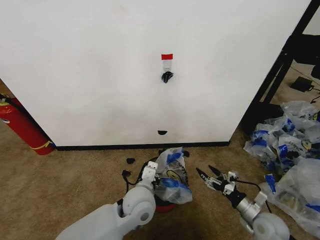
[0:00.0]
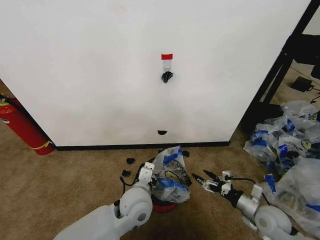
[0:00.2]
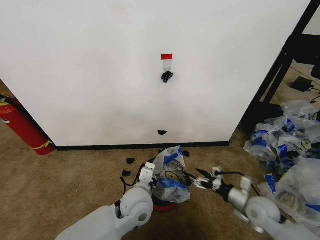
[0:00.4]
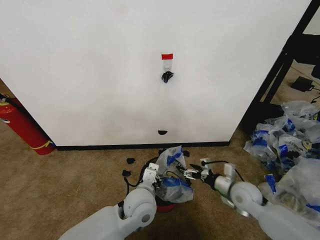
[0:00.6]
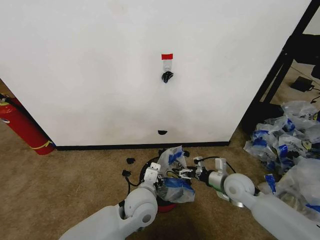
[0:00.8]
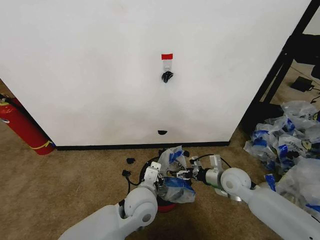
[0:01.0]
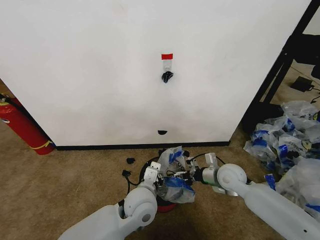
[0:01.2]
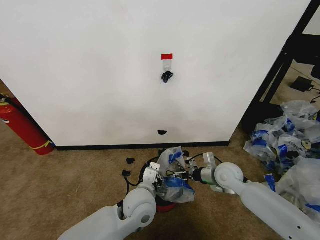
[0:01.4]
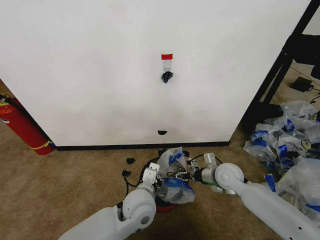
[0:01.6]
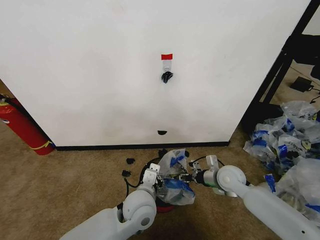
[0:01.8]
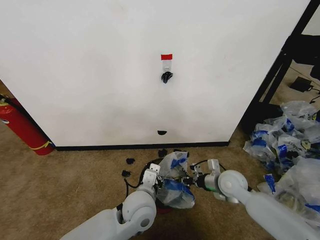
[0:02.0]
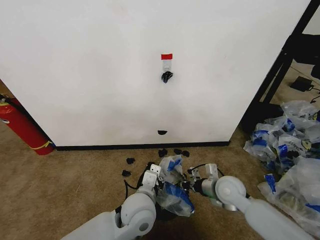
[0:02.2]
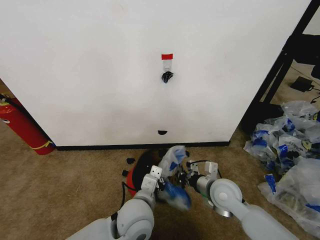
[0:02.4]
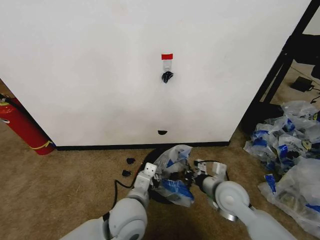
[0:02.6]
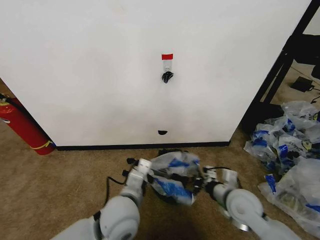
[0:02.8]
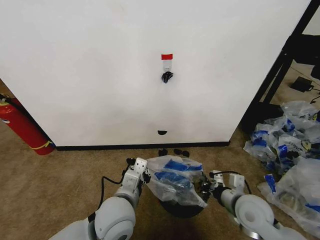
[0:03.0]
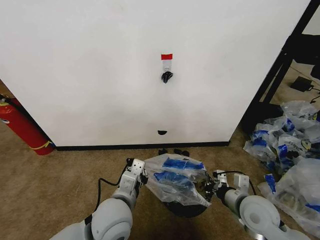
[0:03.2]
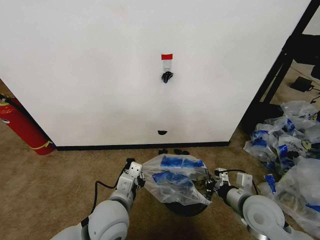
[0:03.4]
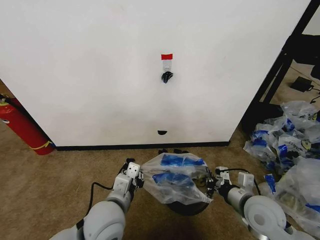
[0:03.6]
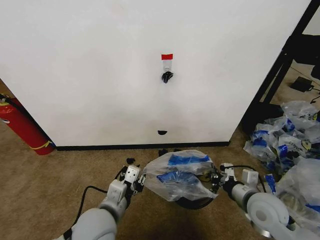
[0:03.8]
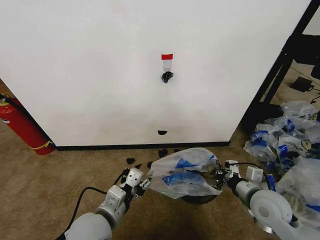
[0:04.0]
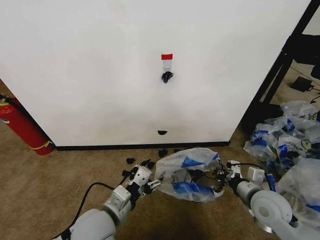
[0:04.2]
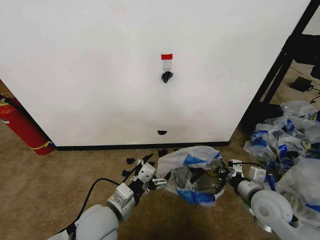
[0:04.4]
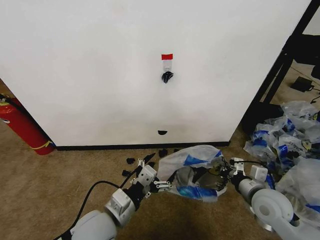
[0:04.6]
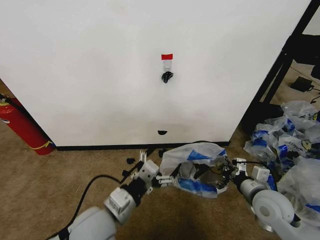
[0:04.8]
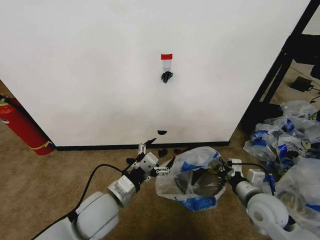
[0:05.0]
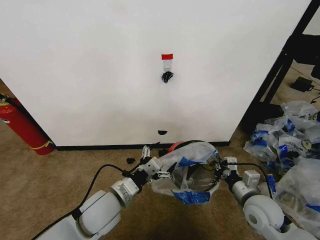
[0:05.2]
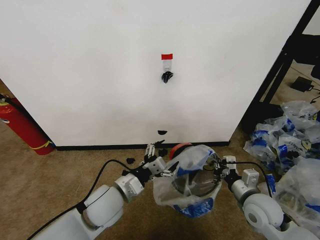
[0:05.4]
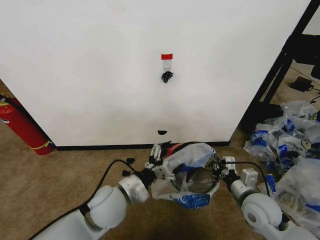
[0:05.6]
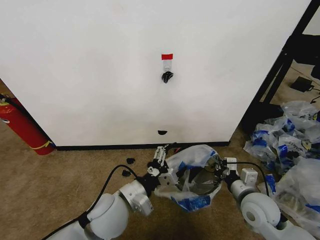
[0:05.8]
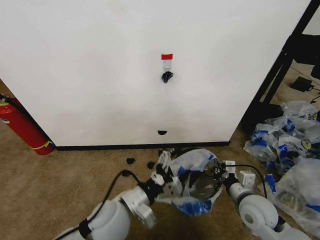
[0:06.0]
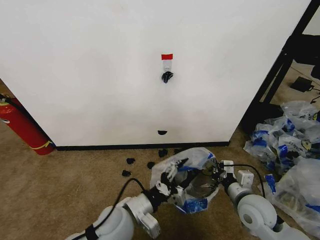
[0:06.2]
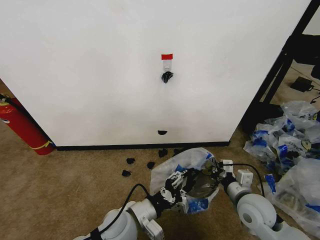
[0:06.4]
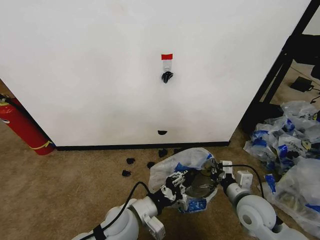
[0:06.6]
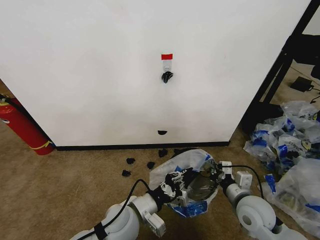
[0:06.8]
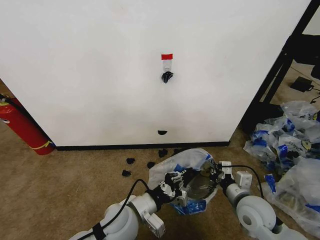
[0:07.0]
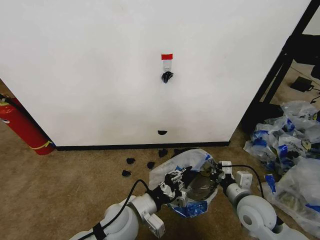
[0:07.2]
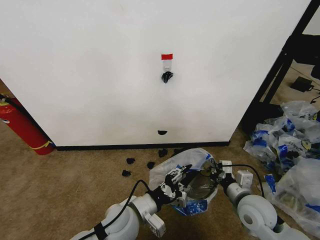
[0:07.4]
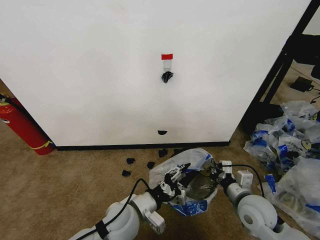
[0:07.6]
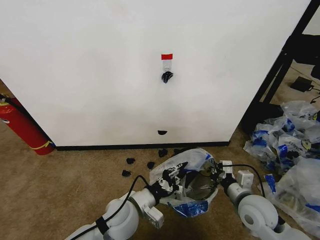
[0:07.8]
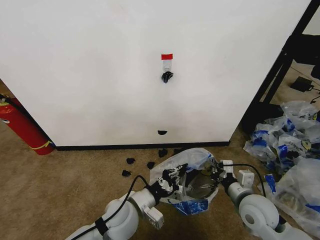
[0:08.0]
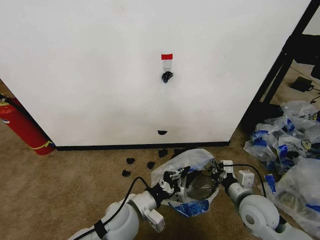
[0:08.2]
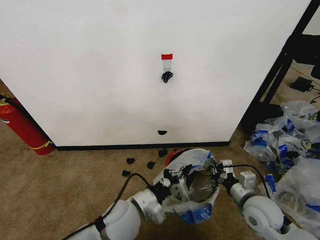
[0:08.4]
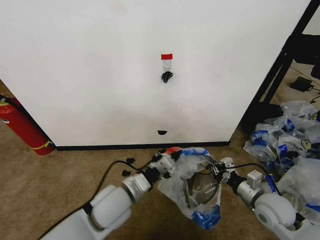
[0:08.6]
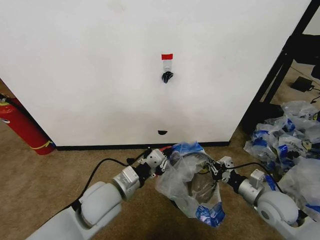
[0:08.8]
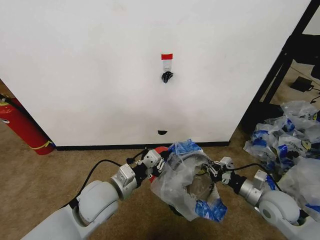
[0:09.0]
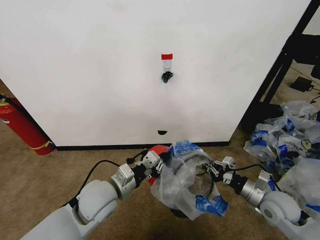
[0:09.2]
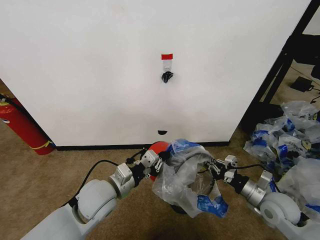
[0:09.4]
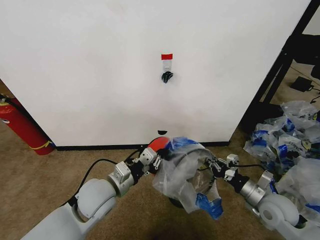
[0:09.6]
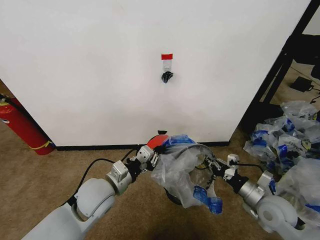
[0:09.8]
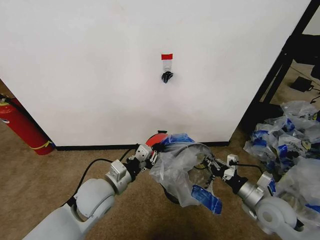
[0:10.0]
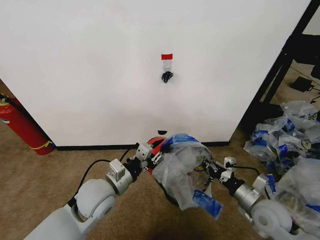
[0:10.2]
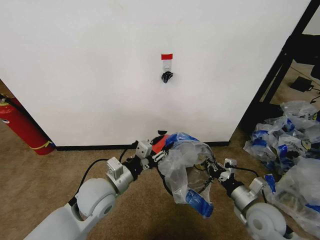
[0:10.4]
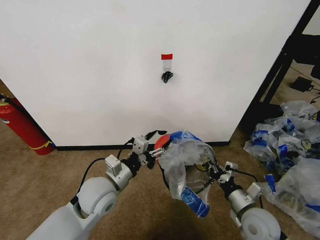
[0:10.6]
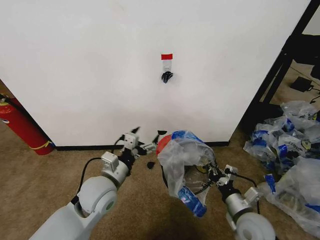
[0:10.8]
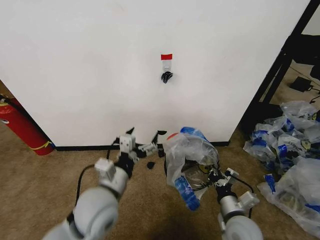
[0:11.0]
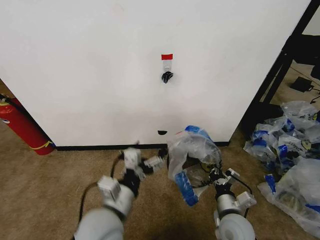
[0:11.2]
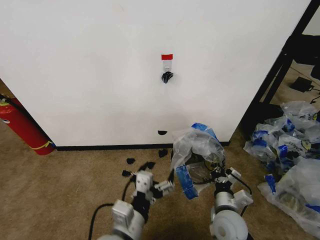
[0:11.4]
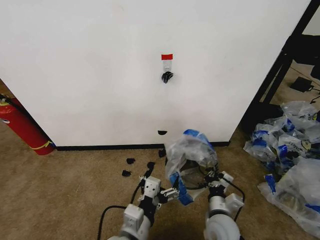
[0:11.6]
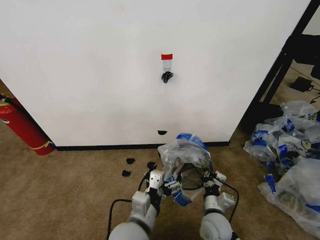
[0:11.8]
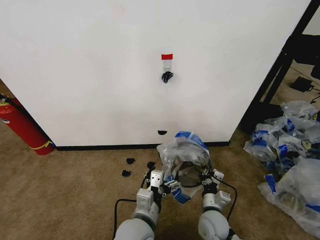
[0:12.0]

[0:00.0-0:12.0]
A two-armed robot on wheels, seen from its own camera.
Task of the whole recording: Pick up the garbage bag from the wall and place it over the trash bin.
0:00.0 to 0:01.6: The right gripper is displaced forward, to the left and upward by about 20 cm.
0:01.6 to 0:03.0: The left gripper goes roughly 5 cm to the left. The right gripper goes approximately 15 cm backward, and closes its fingers.
0:03.0 to 0:04.4: The left gripper opens. The right gripper changes place by some 5 cm.
0:06.0 to 0:07.6: The left gripper goes approximately 5 cm downward, and closes up.
0:07.6 to 0:09.0: The right gripper goes about 10 cm to the right. Meanwhile the left gripper goes some 10 cm upward and to the left, and closes up.
0:09.0 to 0:10.4: The right gripper moves approximately 5 cm. The left gripper opens up.
0:10.4 to 0:12.0: The left gripper heads to the right, backward and downward, covering about 15 cm, and opens its fingers. Meanwhile the right gripper shifts some 15 cm to the left and downward.

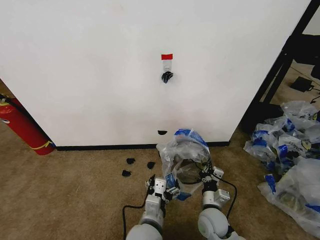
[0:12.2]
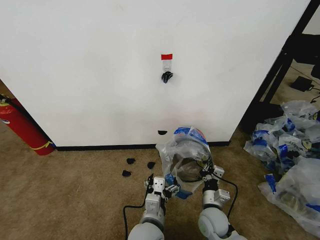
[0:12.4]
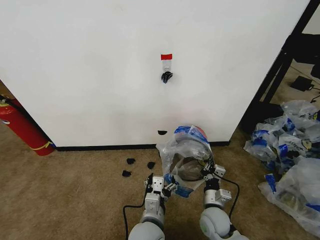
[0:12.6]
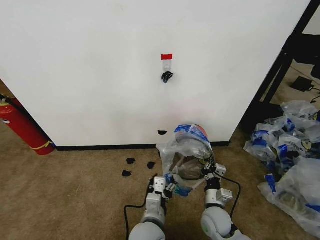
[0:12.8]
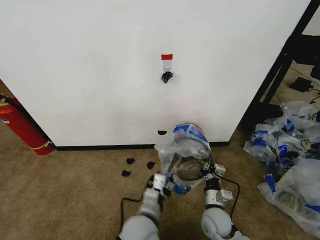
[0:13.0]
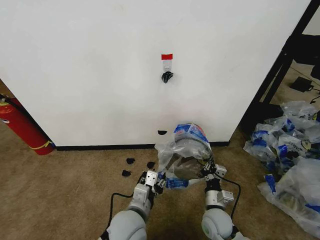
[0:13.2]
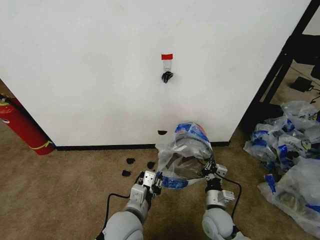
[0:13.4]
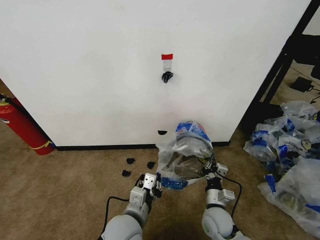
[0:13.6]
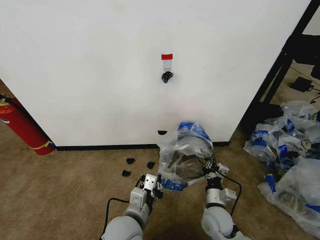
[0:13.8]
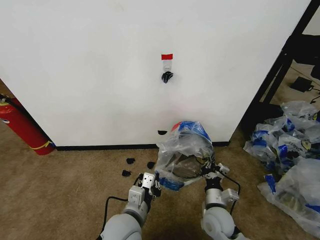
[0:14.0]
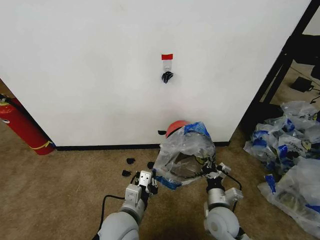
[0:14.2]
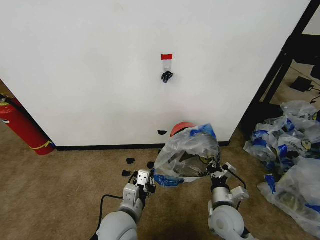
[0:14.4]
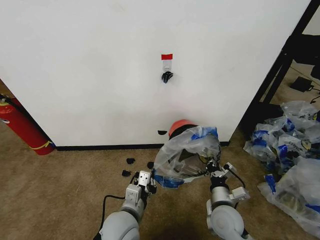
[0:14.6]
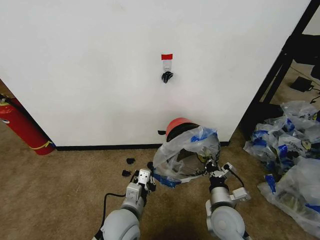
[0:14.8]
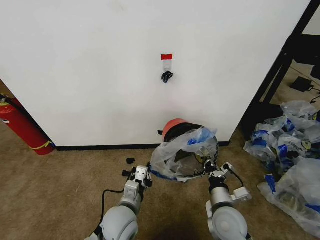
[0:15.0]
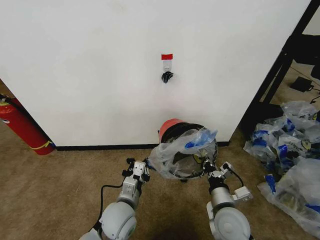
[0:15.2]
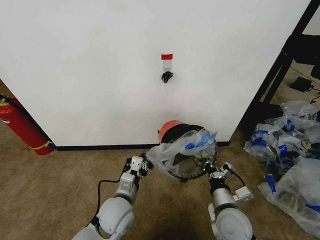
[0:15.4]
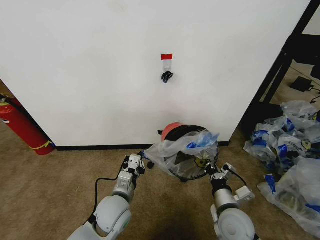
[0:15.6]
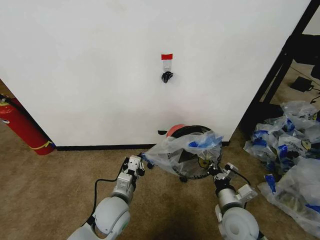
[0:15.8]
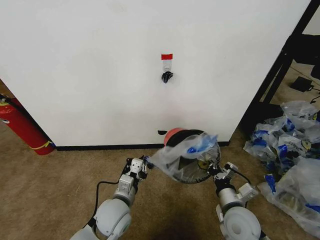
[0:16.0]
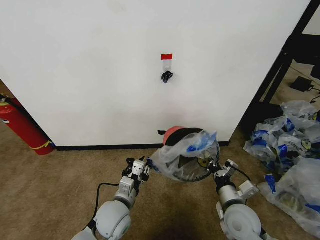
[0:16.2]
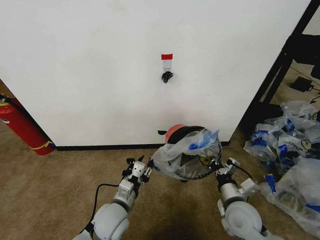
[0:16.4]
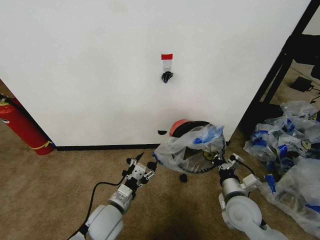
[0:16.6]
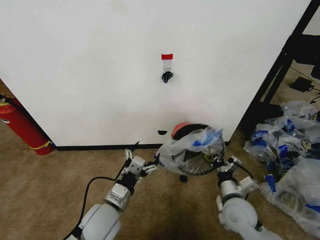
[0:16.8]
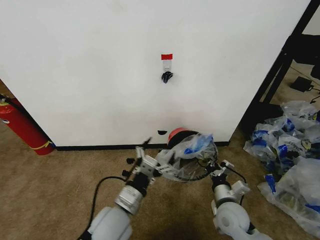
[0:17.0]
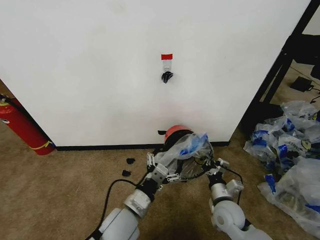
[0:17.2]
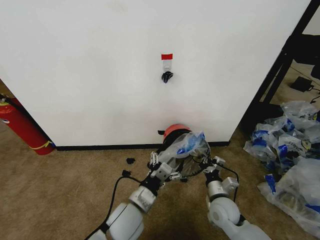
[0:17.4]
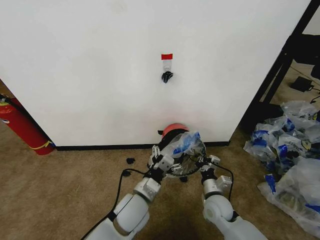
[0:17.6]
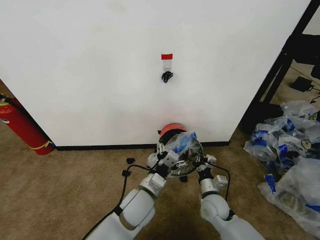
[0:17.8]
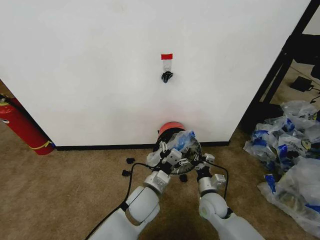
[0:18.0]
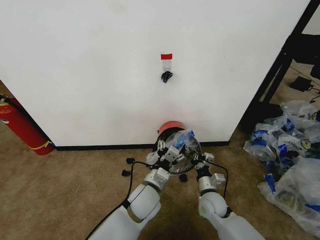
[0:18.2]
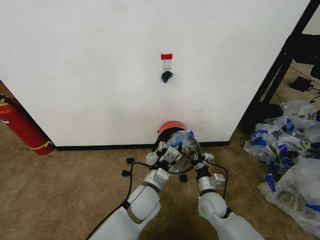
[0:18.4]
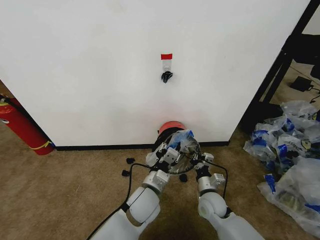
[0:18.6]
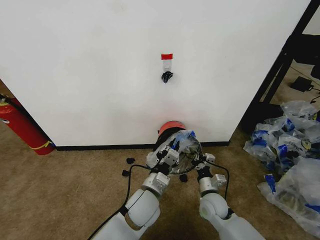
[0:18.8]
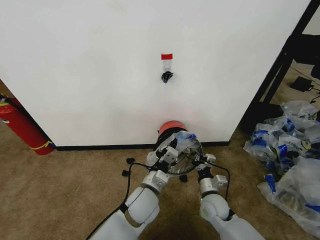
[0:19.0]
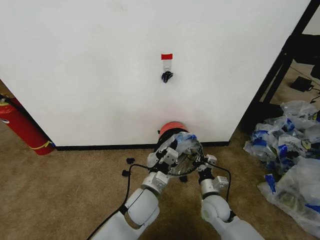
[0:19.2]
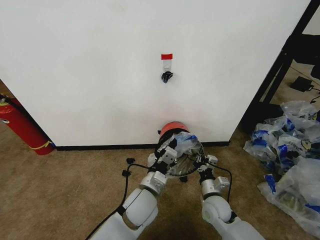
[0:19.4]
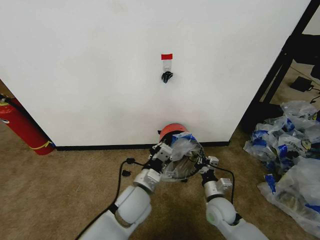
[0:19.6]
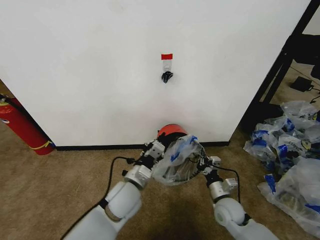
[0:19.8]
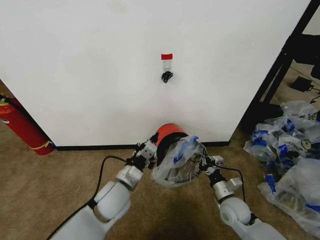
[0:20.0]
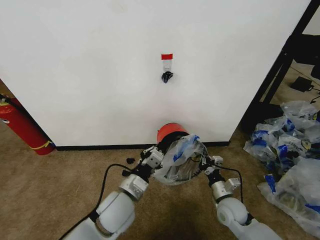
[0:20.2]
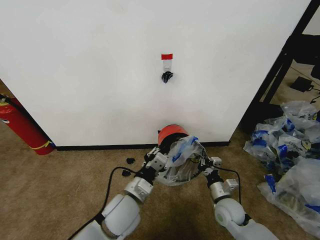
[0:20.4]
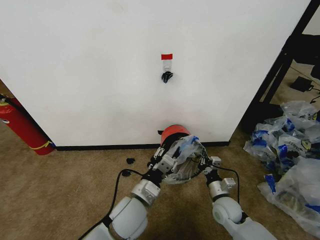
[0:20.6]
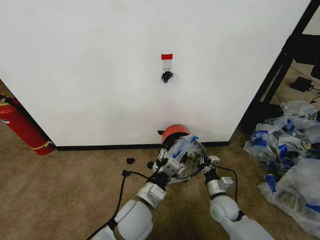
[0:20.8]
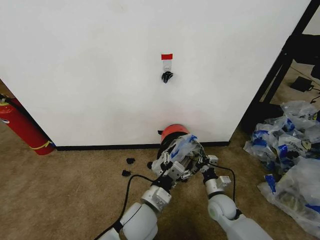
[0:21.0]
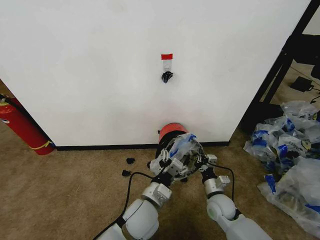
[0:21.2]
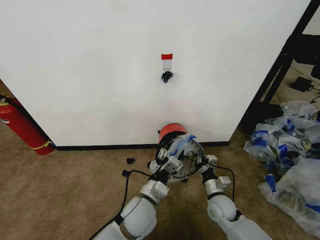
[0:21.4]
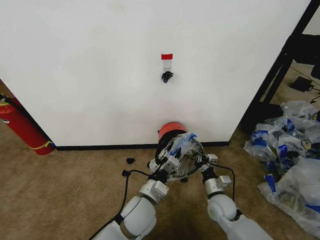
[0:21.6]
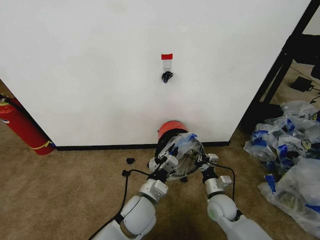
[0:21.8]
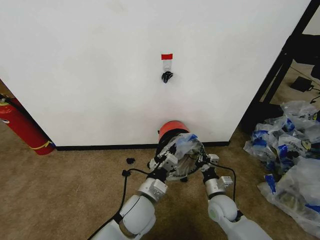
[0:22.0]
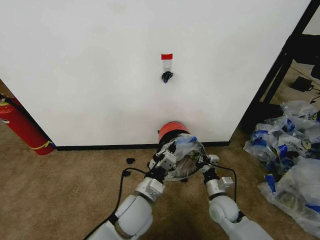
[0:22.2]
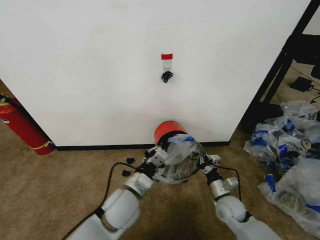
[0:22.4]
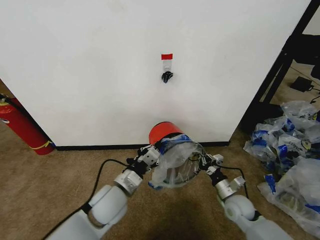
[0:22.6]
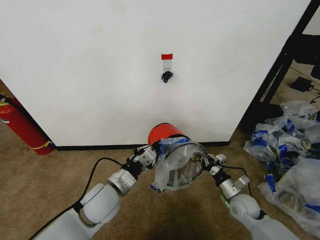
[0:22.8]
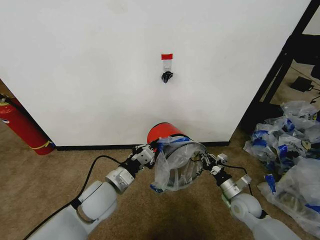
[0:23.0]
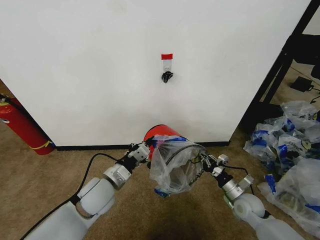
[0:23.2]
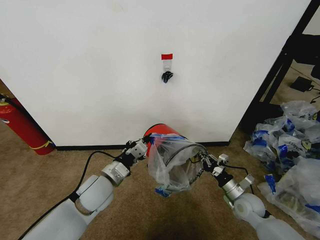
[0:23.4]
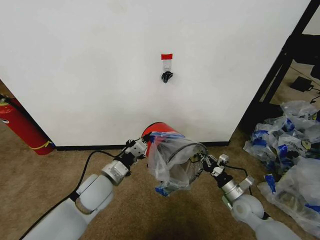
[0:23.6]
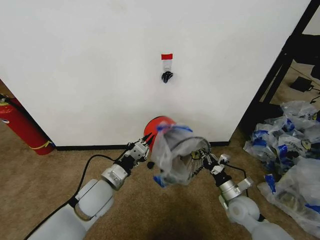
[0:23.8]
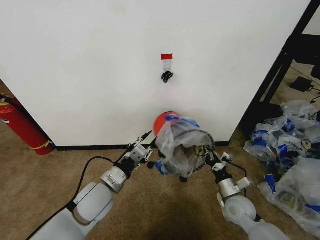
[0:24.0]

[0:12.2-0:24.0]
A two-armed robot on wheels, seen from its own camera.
Task of the whole recording: Pick up the garbage bag from the wall and place it over the trash bin.
0:12.2 to 0:13.6: The left gripper goes approximately 5 cm to the left, and closes.
0:13.6 to 0:15.2: The left gripper ends up about 5 cm from where it was. The right gripper heads upward, covering some 10 cm.
0:15.2 to 0:16.6: The right gripper shifts by approximately 5 cm, while the left gripper opens up.
0:16.6 to 0:18.2: The right gripper is displaced downward, to the left and forward by some 10 cm, while the left gripper travels to the right and forward by some 10 cm.
0:18.2 to 0:19.6: The left gripper closes up.
0:19.6 to 0:21.0: The left gripper reaches some 5 cm to the left, then returns, and opens.
0:21.0 to 0:22.6: The left gripper heads to the left, covering roughly 10 cm, and closes up; the right gripper moves to the right, some 5 cm.
0:22.6 to 0:24.0: There are only small adjustments of the grippers.
